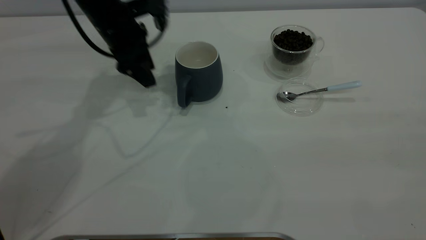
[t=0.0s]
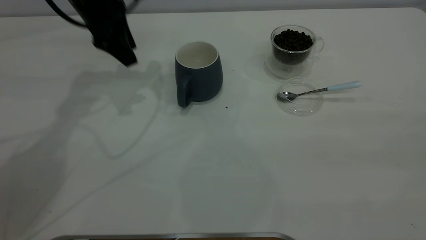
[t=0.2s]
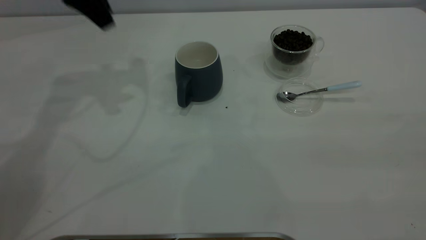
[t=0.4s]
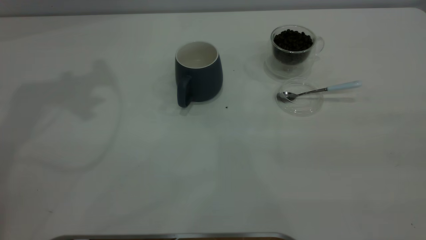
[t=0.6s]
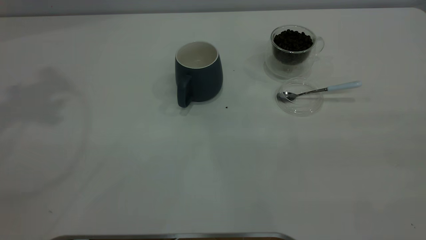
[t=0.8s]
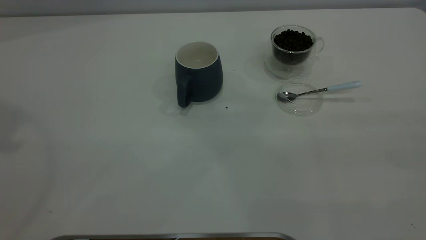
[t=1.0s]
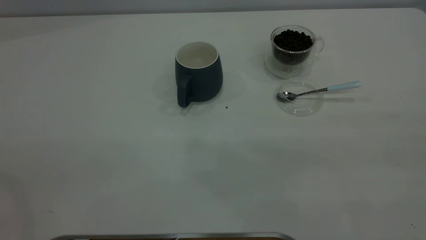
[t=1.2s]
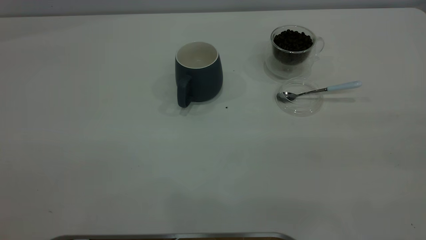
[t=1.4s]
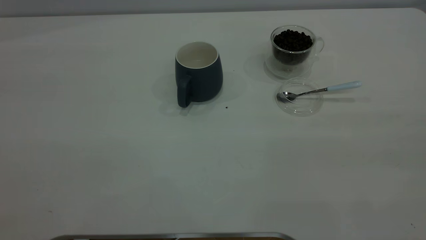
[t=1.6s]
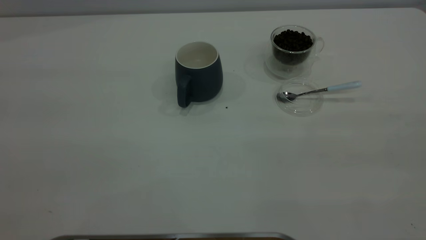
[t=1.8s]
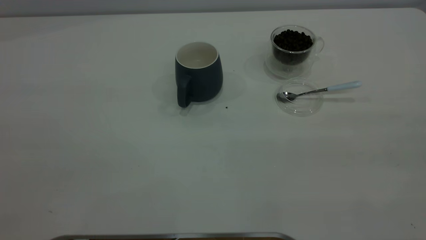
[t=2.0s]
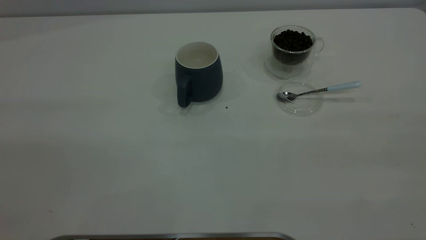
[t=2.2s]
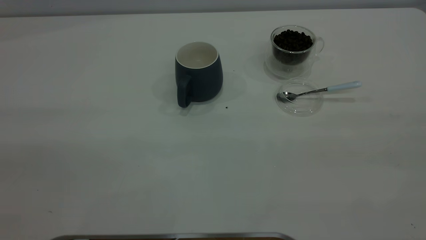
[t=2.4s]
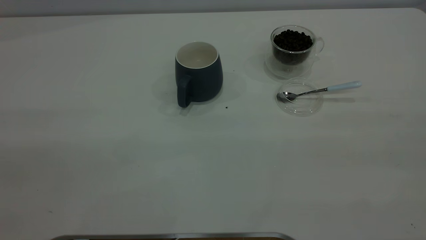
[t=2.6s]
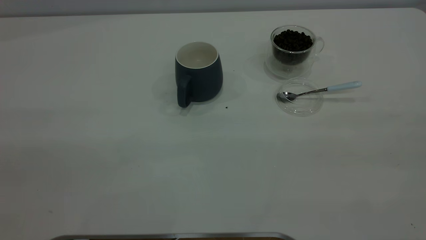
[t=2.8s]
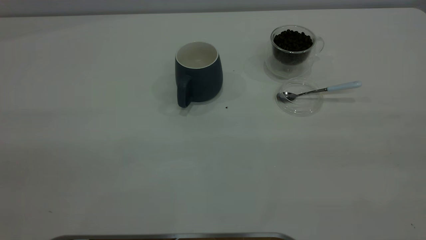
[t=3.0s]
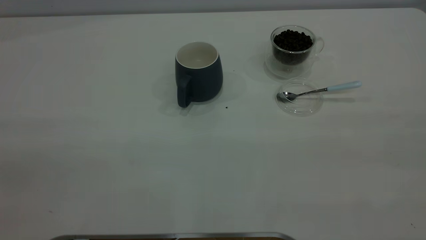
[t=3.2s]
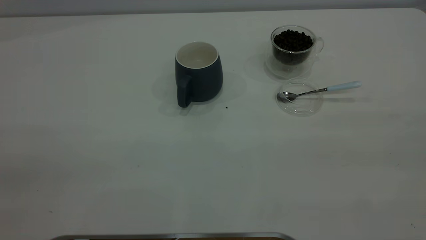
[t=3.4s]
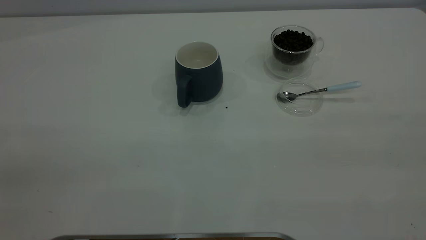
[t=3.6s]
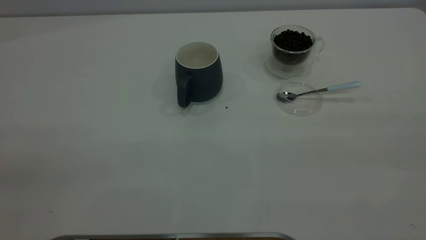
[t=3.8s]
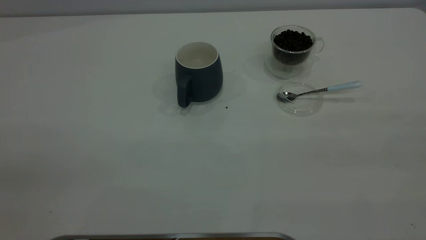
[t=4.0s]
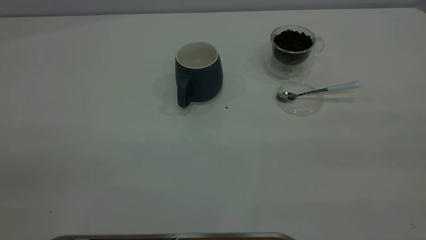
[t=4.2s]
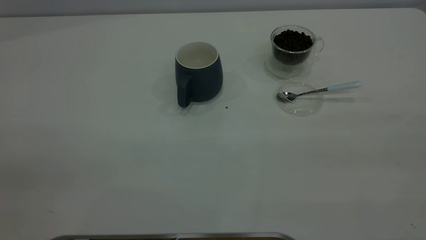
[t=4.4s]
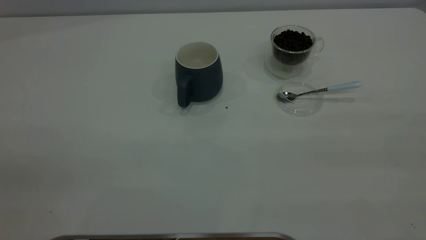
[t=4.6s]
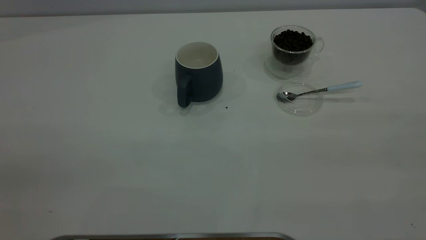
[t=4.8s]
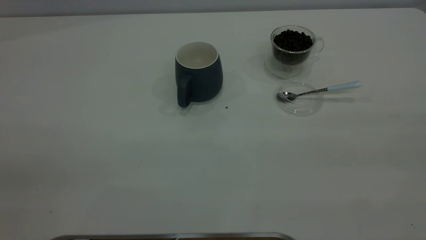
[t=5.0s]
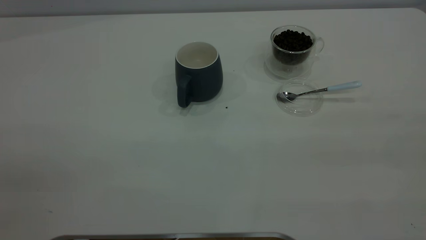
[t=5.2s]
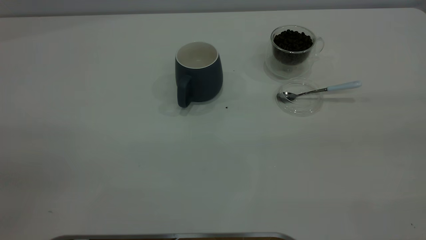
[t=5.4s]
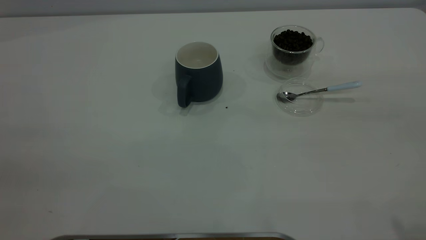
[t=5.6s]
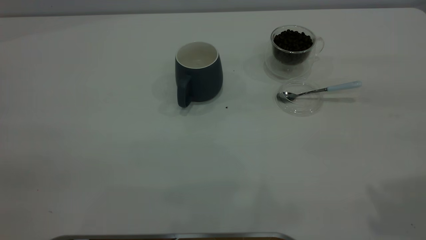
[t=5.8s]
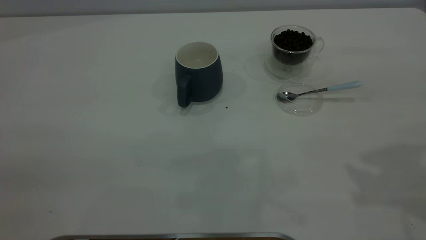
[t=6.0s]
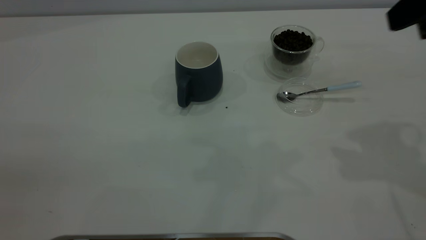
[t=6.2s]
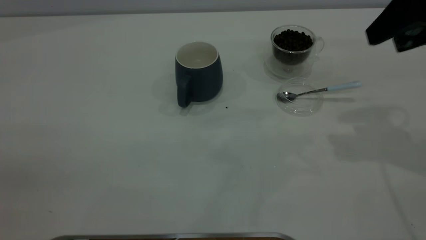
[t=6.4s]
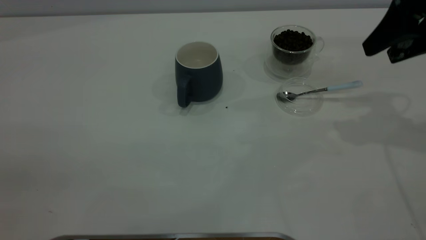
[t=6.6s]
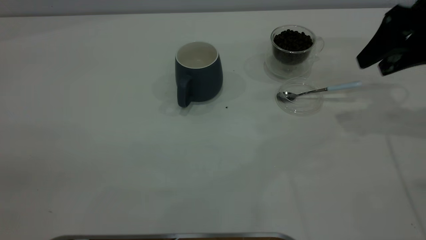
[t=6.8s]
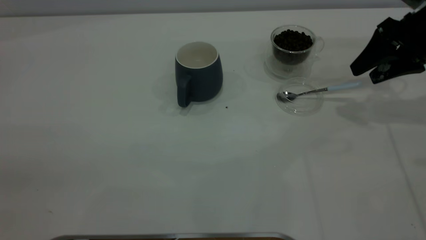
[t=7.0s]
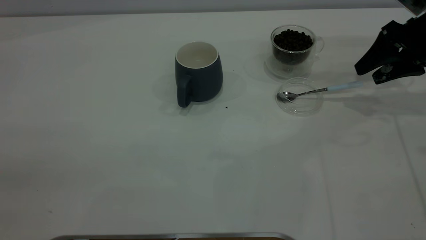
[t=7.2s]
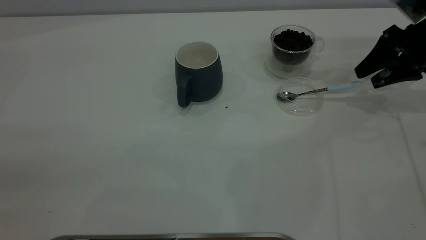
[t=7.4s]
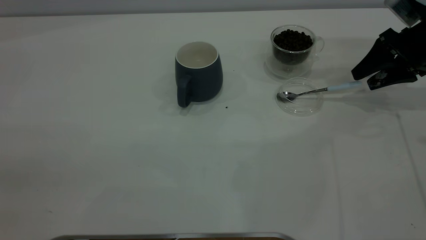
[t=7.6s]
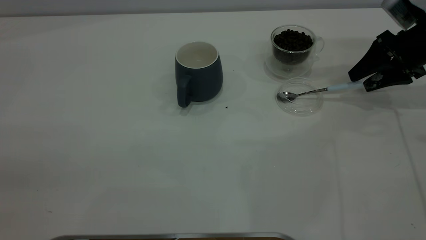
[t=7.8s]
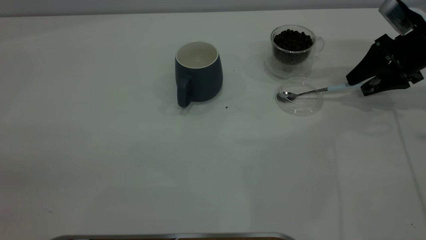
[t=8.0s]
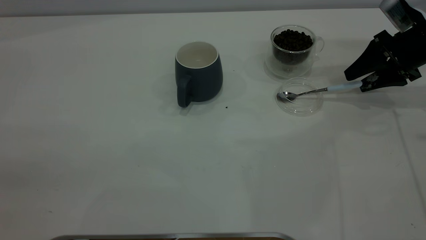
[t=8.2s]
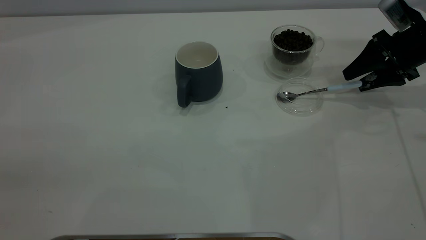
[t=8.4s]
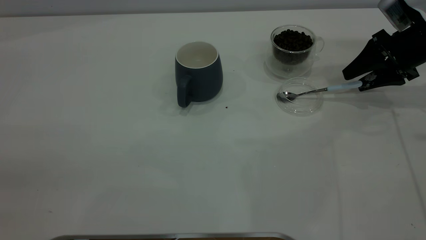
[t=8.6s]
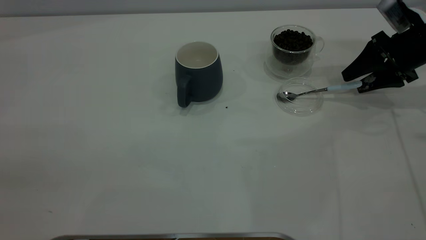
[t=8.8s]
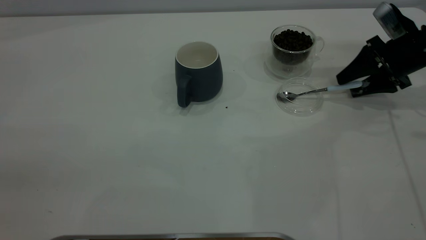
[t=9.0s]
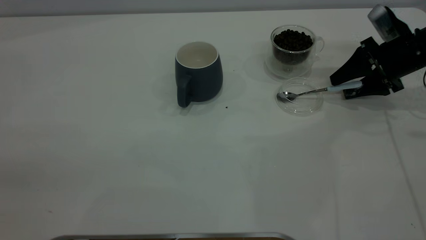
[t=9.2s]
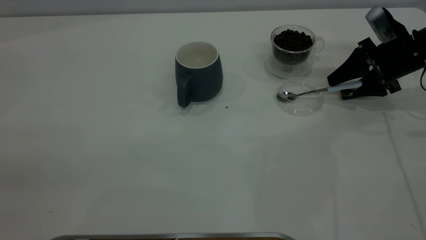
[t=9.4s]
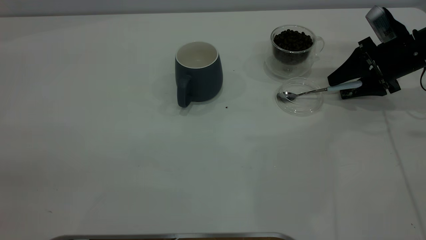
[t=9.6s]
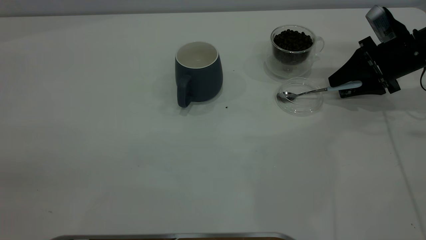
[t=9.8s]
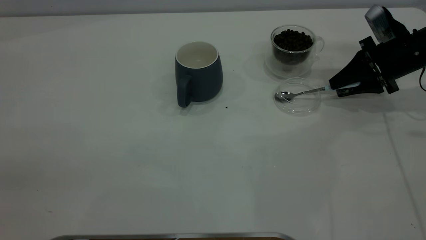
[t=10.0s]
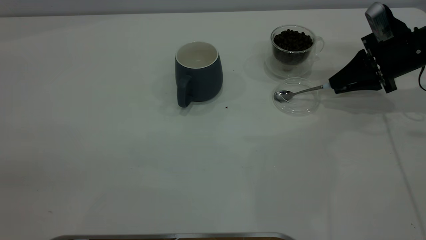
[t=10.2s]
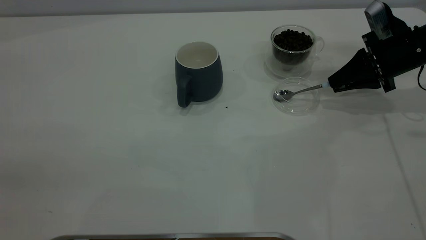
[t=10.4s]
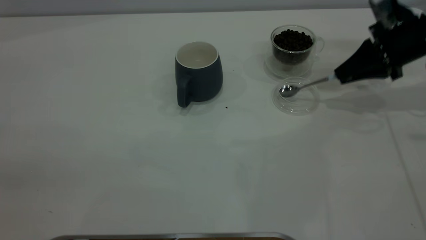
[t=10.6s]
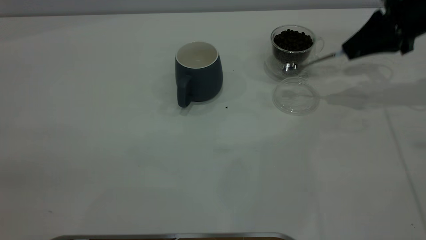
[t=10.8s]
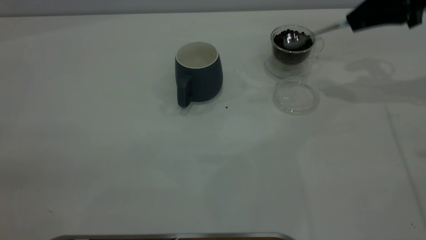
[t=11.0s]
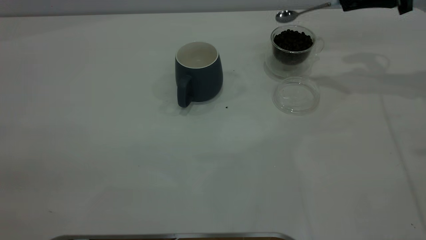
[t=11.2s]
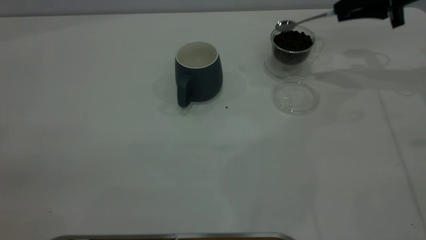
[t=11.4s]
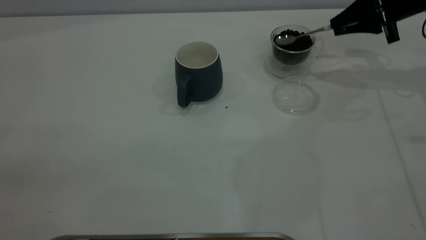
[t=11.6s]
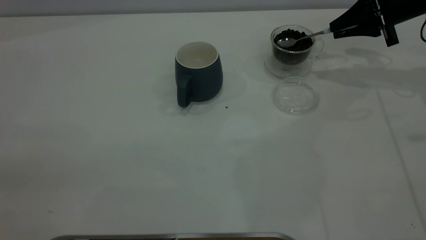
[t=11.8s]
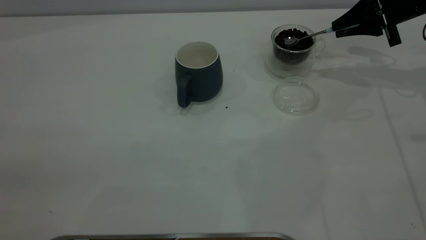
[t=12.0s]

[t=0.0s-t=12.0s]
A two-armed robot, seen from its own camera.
Task of the whole recording: the left gripper place the grey cup in the center of the table, the right gripper take the blue spoon from the cup lid and scoop out the coffee beans from the coffee cup and put them into the grey cup, the right gripper put the spoon back into the cup lid.
Step, t=0.0s to t=10.6s: Pick up the spoon.
t=0.0s to t=1.6s: The left gripper goes some 50 cm backward and upward.
t=6.0s to t=7.6s: The right gripper heads downward and forward, covering some 30 cm.
t=7.6s to t=9.0s: The grippers make only small movements.
t=9.0s to t=10.4s: The right gripper closes.
t=10.4s to t=12.0s: The right gripper is displaced upward and forward by some 10 cm.

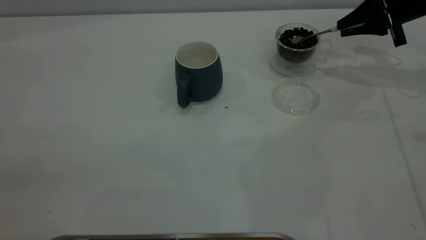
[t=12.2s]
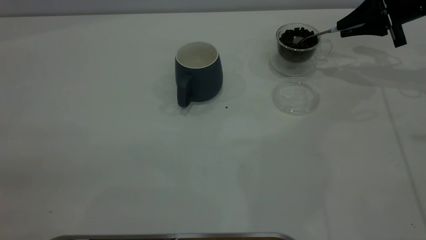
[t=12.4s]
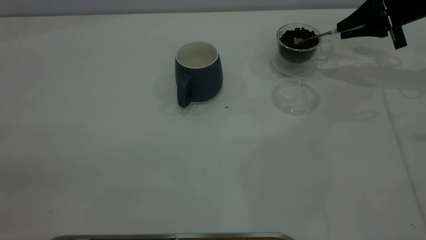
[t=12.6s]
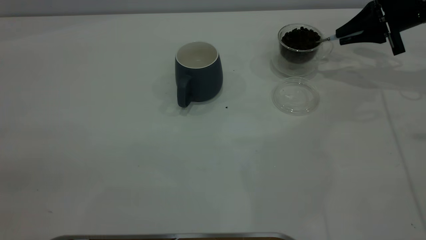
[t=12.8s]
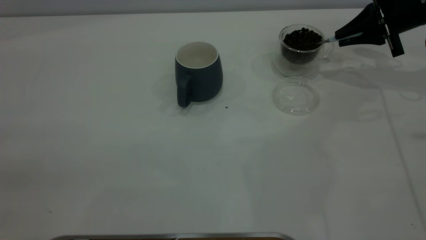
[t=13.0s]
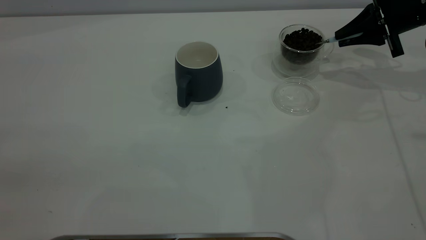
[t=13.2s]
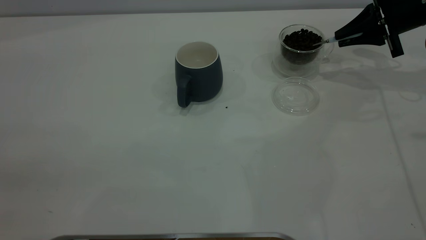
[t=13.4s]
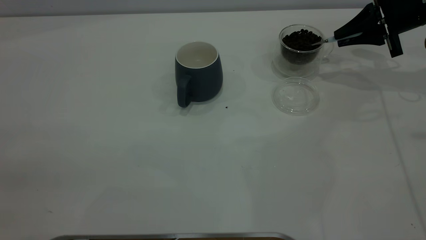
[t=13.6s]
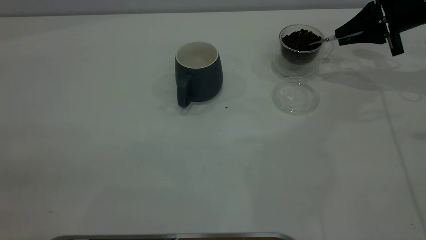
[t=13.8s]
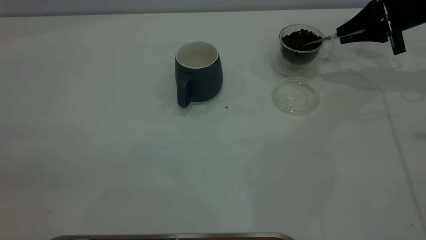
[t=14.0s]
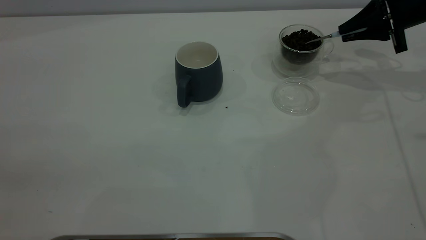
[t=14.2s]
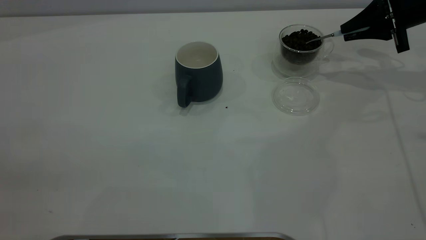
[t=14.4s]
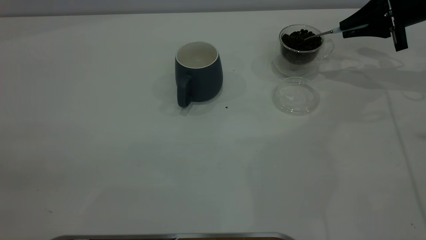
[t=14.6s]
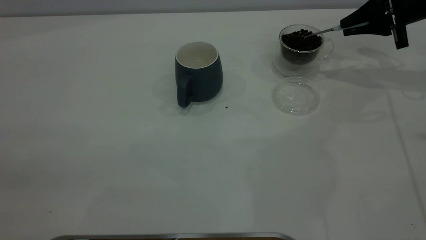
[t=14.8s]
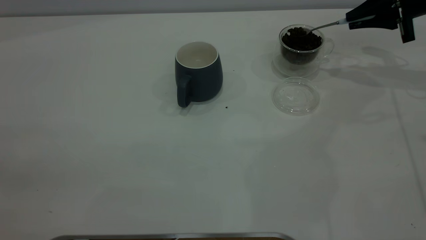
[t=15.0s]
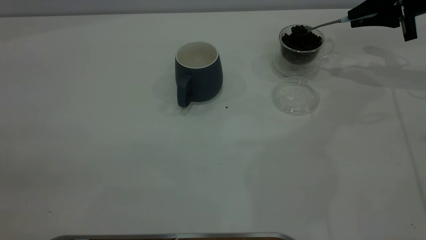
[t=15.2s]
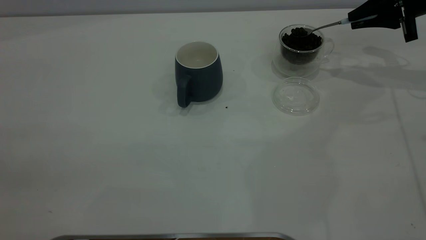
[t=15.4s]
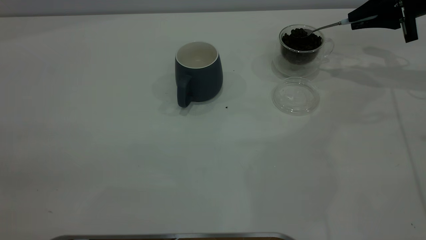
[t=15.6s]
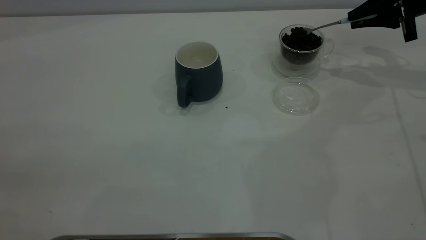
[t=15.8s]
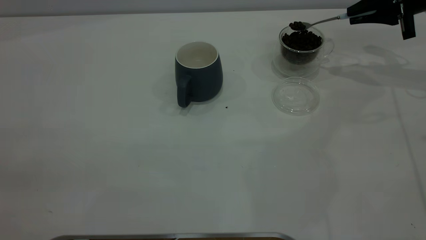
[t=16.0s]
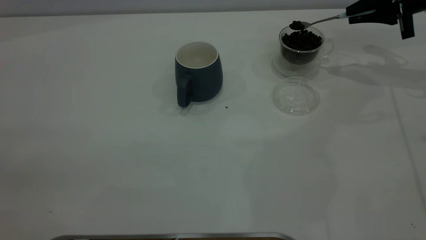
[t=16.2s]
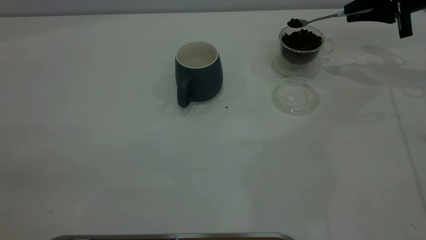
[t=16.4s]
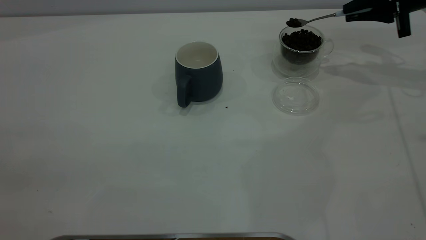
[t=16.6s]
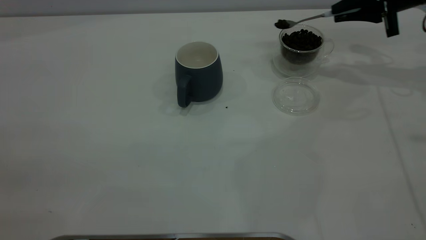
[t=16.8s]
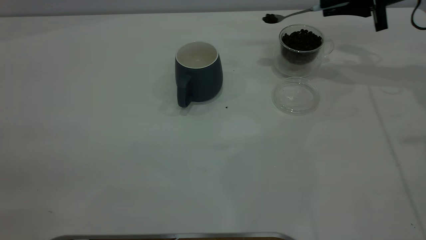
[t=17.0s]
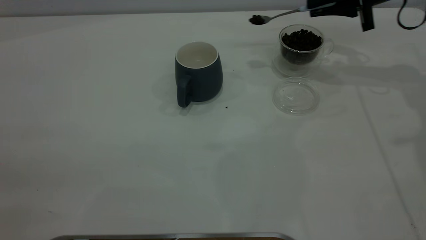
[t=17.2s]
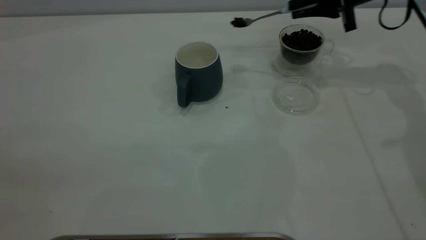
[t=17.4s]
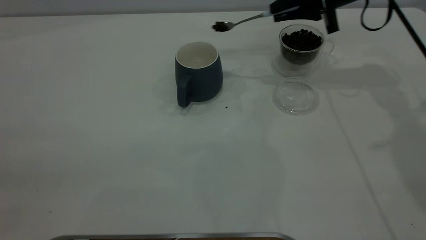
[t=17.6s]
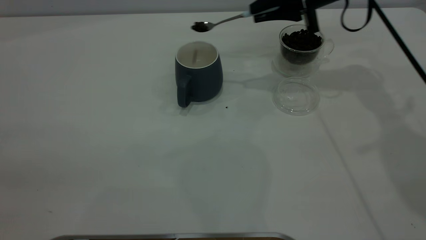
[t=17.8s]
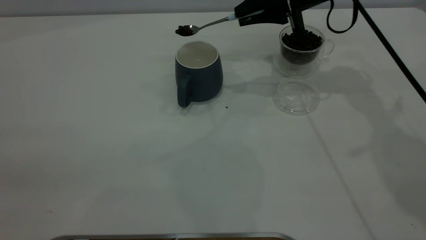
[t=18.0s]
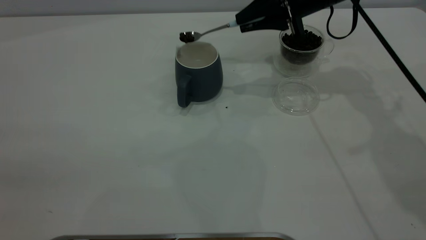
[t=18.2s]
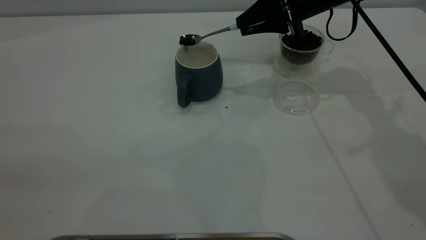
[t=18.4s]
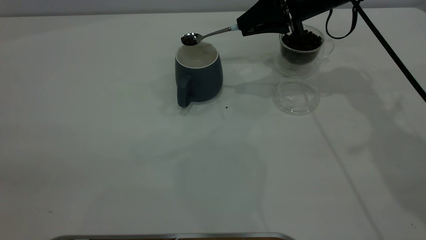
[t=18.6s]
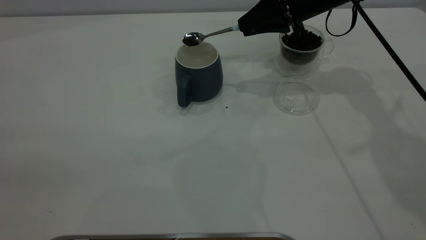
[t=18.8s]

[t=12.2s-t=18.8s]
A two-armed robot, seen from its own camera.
Task of the whole recording: the left gripper place the grey cup in the center of the table, the right gripper take the blue spoon from the cup lid and scoop out the coffee beans from the coffee cup and put them into the grey cup, the right gripper put the spoon back into the cup lid.
t=12.2s to t=15.4s: There are only small adjustments of the grippers.
t=15.4s to t=17.2s: The right gripper heads to the left, covering about 10 cm.
t=17.2s to t=18.8s: The right gripper travels to the left by approximately 10 cm.
